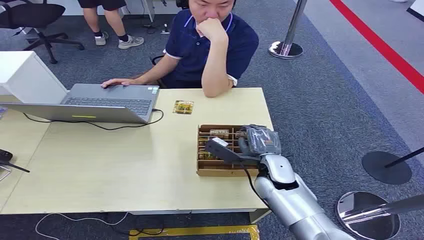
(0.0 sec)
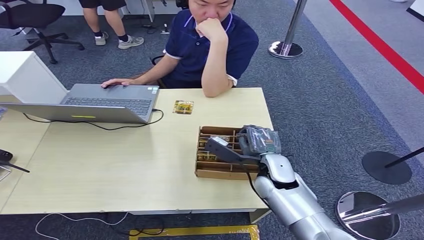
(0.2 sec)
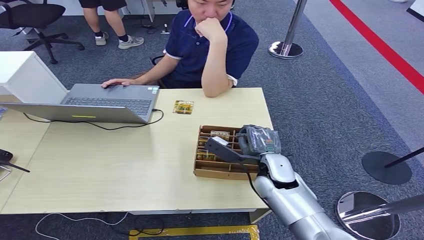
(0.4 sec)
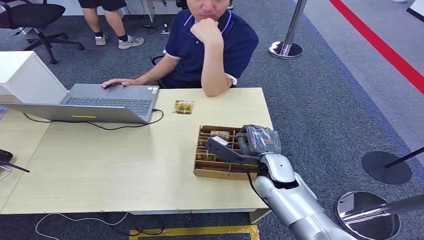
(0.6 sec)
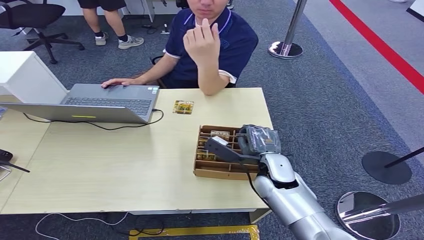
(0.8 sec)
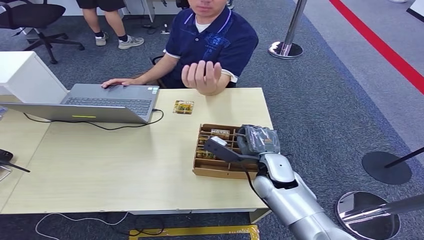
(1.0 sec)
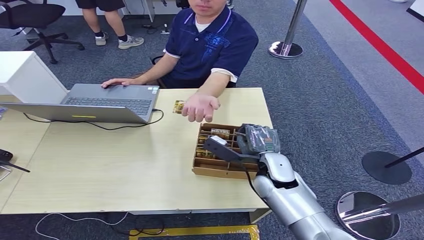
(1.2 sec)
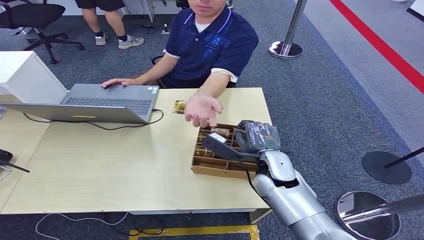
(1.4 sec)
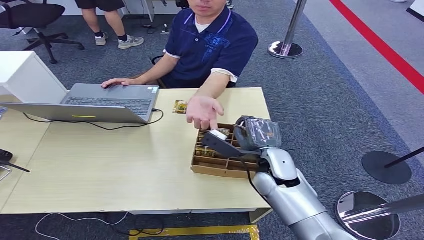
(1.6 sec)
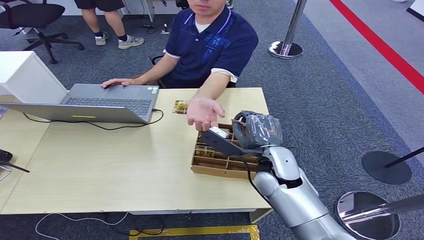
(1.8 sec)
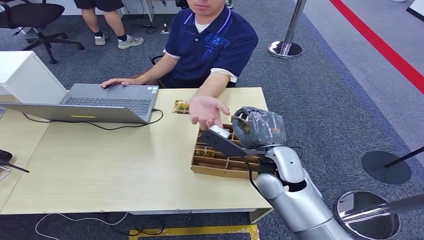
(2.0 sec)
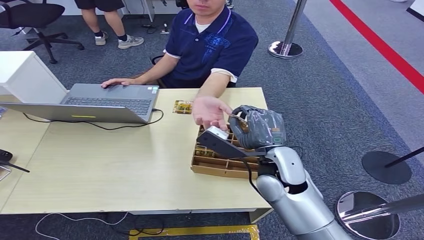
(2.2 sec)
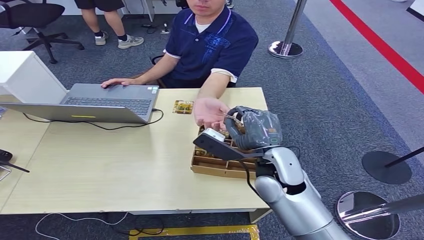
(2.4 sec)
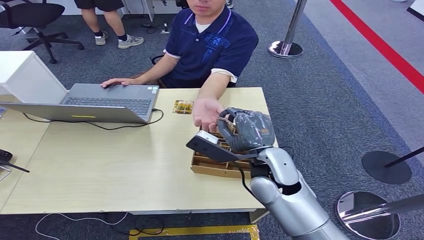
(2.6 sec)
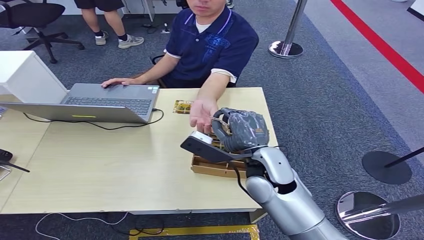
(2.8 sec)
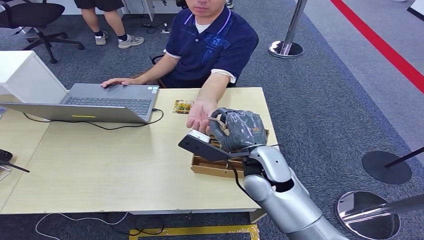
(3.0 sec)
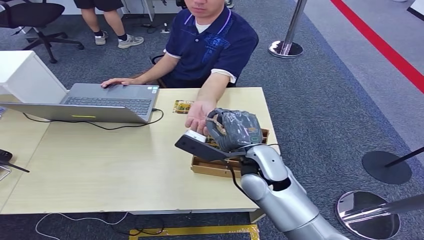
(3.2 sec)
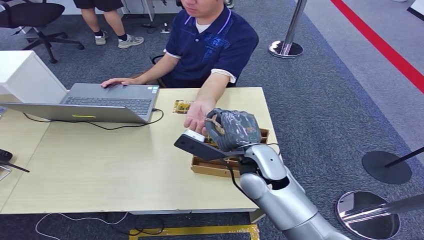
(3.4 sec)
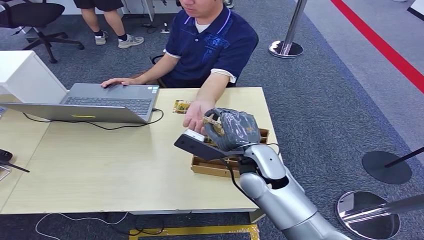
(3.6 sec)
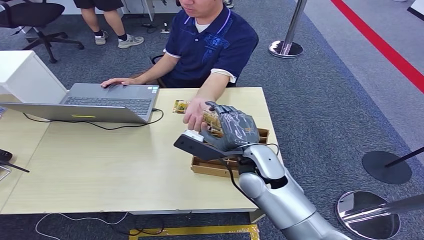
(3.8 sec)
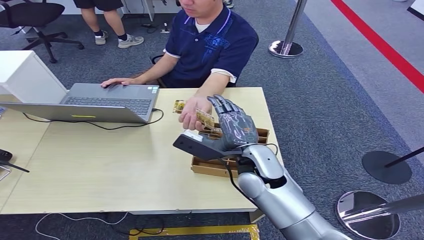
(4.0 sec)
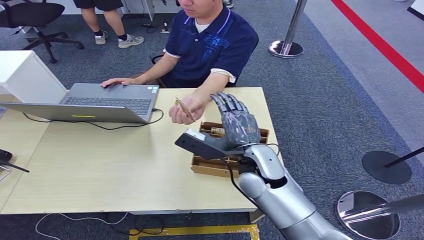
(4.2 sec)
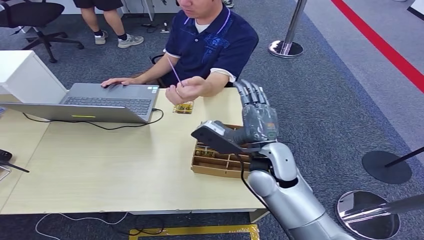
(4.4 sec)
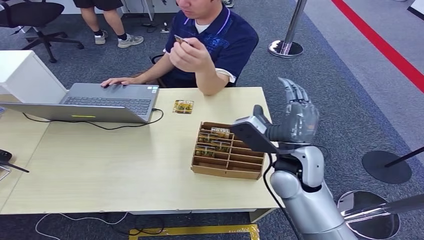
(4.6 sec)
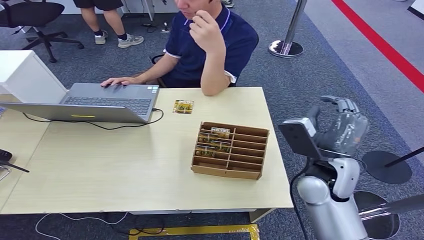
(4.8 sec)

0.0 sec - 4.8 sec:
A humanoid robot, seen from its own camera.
Step, 0.0 sec - 1.6 sec: Pick up the key card from the card box.
Step, 1.8 sec - 4.8 sec: Hand the key card to the target.
1.6 sec - 3.2 sec: The right hand moves upward, about 5 cm.
3.2 sec - 4.8 sec: The right hand is displaced to the right by roughly 10 cm.
